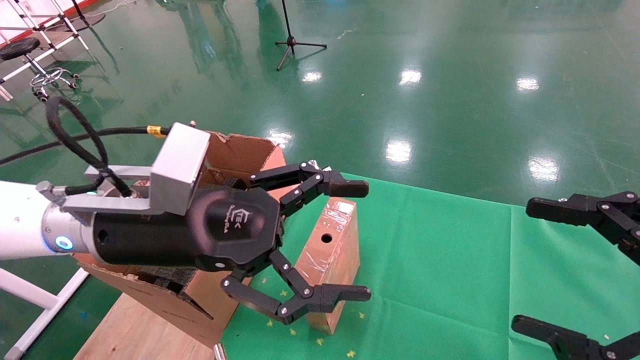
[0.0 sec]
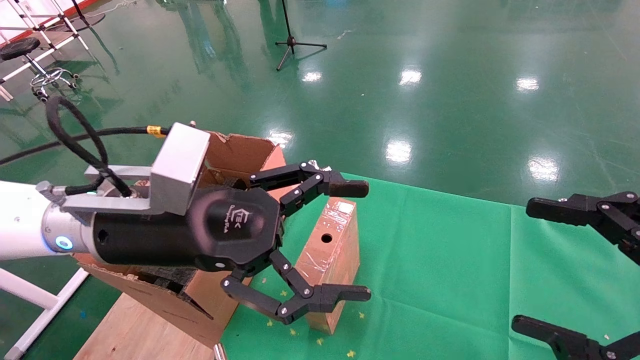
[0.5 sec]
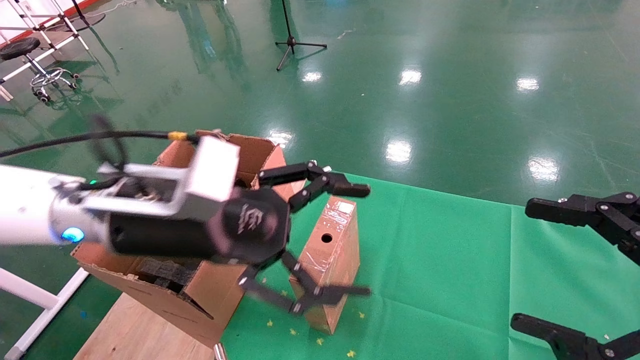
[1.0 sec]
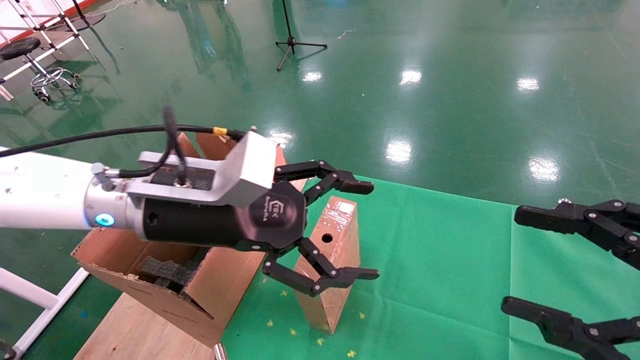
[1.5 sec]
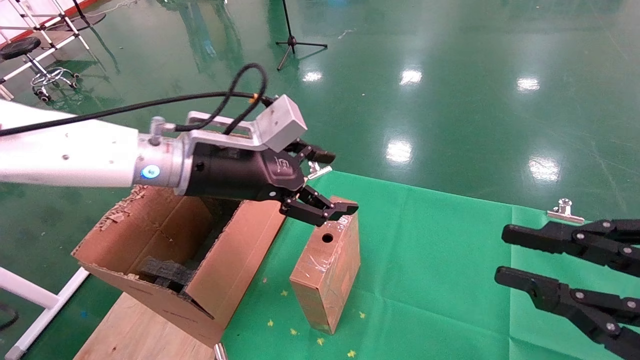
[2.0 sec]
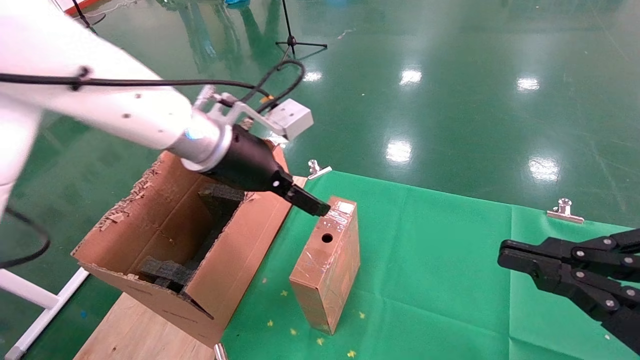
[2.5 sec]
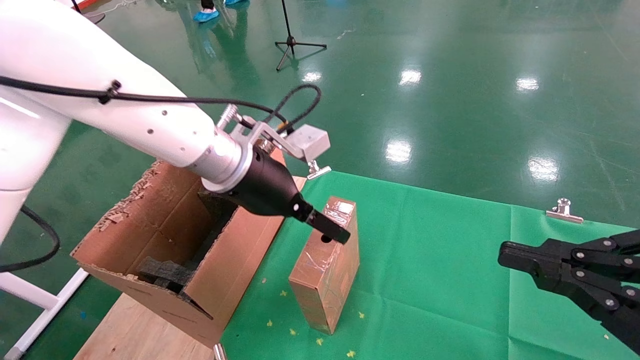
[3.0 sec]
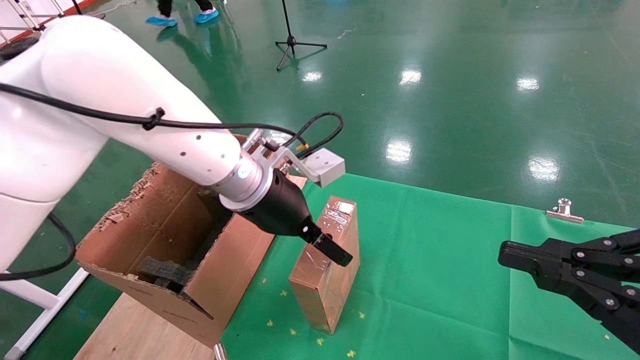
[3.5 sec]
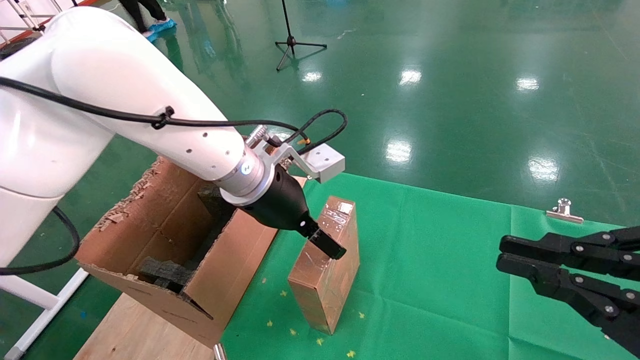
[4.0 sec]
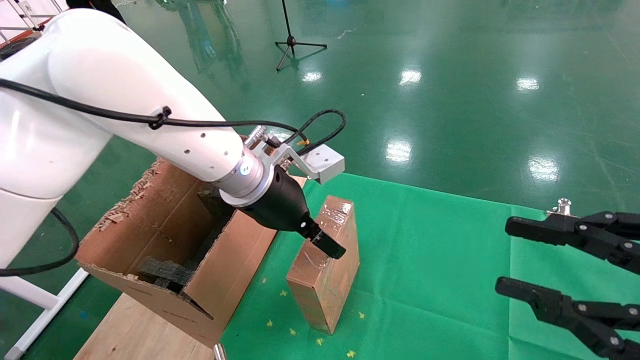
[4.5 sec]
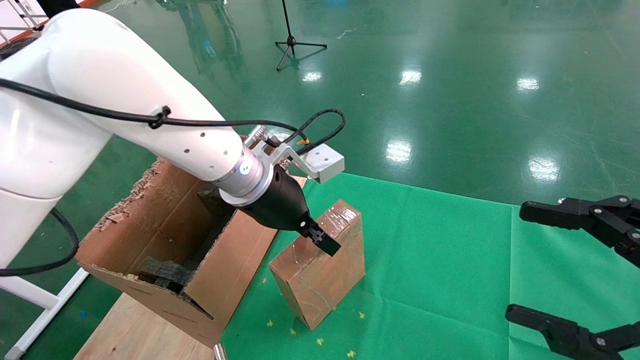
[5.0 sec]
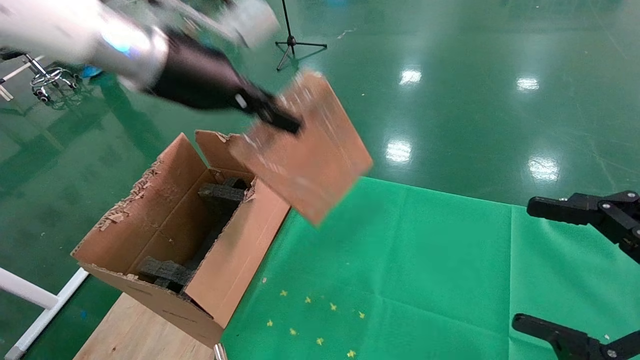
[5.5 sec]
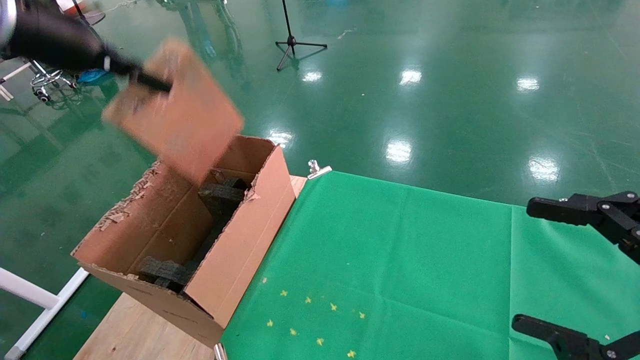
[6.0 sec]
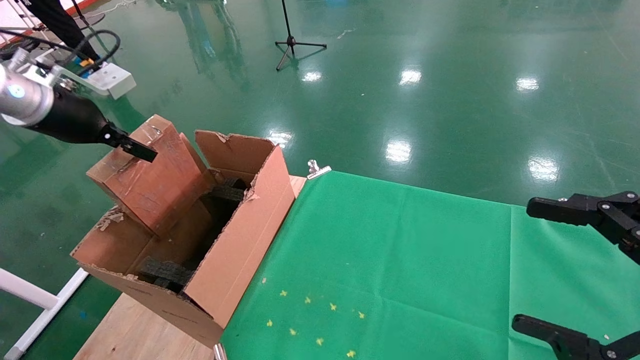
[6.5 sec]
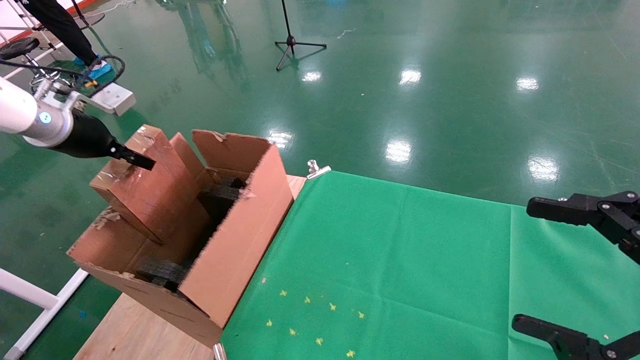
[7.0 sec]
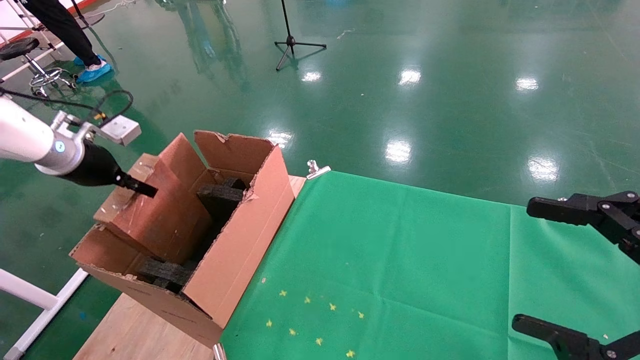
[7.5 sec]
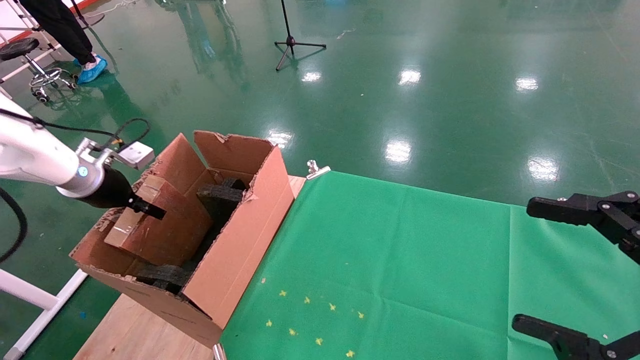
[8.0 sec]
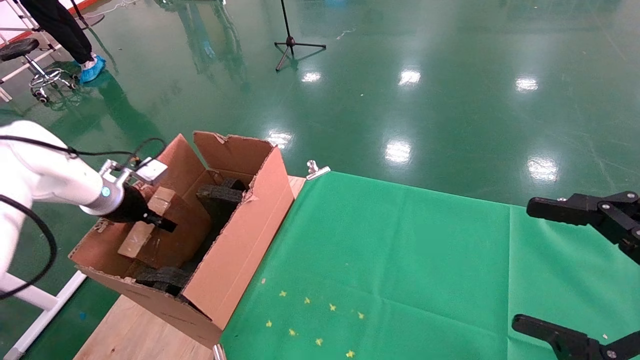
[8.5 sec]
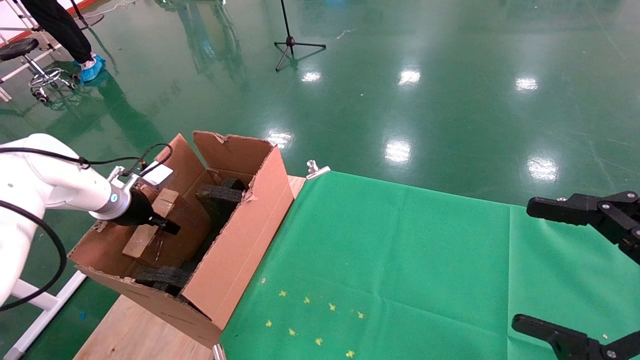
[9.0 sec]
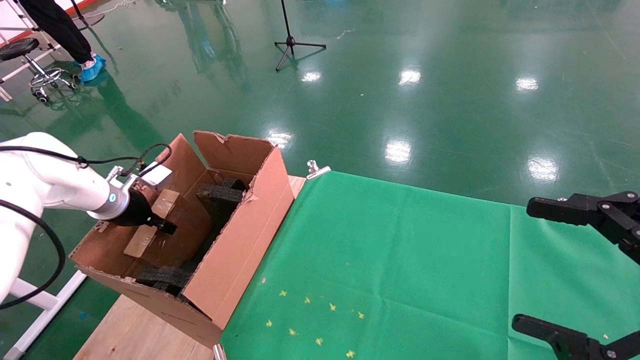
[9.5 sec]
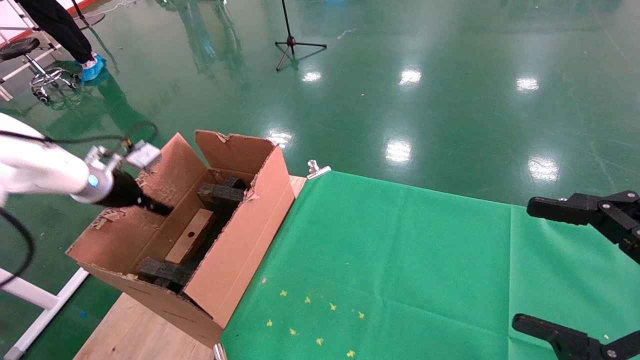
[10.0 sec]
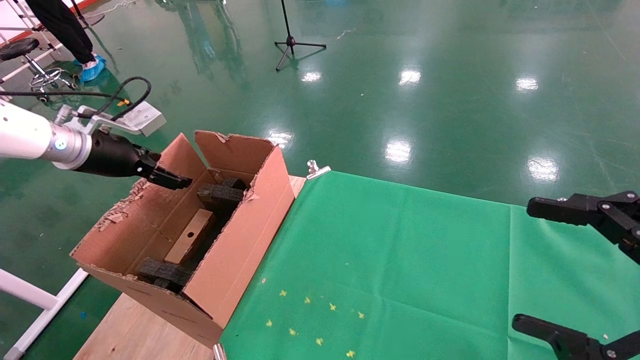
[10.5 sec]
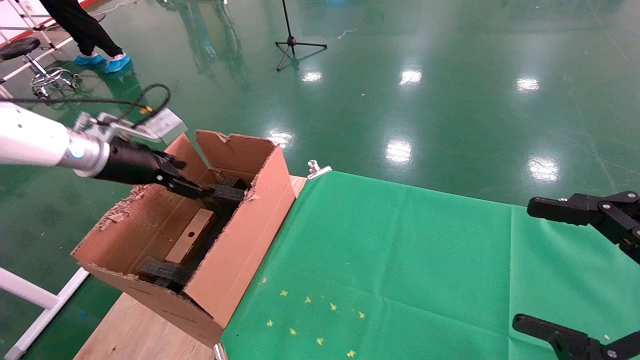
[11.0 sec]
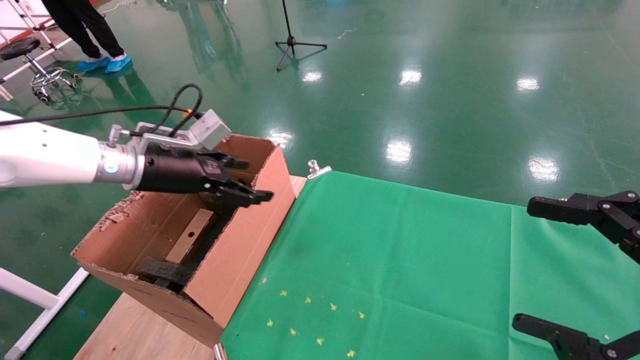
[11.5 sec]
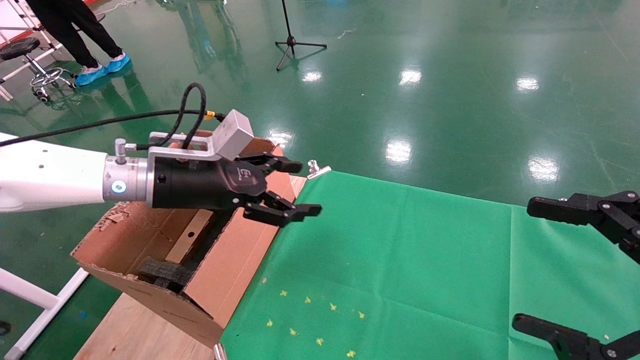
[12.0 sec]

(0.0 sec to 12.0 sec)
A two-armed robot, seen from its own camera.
Task of the whole recording: using a robotic arm to pick up a cardboard box and palace it the carton.
Step, 1.5 sec - 5.0 sec: Pick up the mouse and the power cord paper box.
Step, 5.5 sec - 10.0 sec: Place the mouse and the power cord paper box into the container.
0.0 sec - 2.0 sec: The left gripper shifts about 10 cm forward. The right gripper closes its fingers.
2.0 sec - 4.0 sec: The left gripper is displaced to the right by roughly 5 cm.
4.0 sec - 6.0 sec: The right gripper opens its fingers; the left gripper is displaced to the left and upward by roughly 30 cm, and closes up.
6.0 sec - 8.0 sec: The left gripper shifts roughly 25 cm downward and to the left.
8.0 sec - 10.0 sec: The left gripper opens up.
10.0 sec - 12.0 sec: The left gripper heads to the right, covering some 20 cm, and opens up.

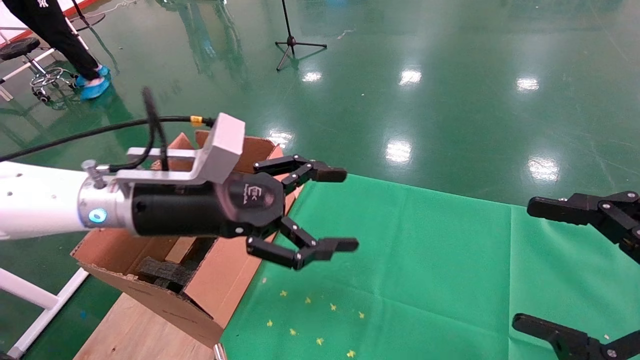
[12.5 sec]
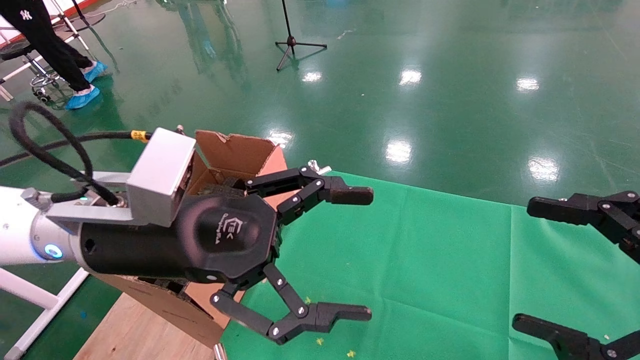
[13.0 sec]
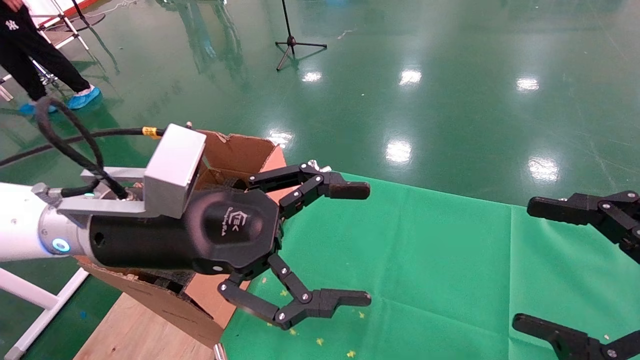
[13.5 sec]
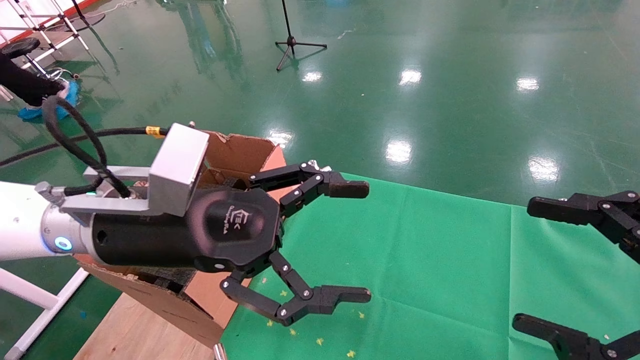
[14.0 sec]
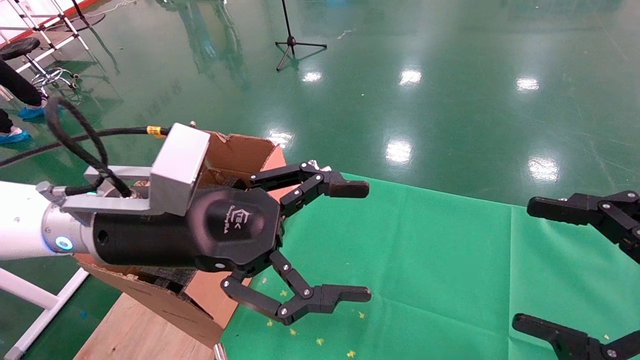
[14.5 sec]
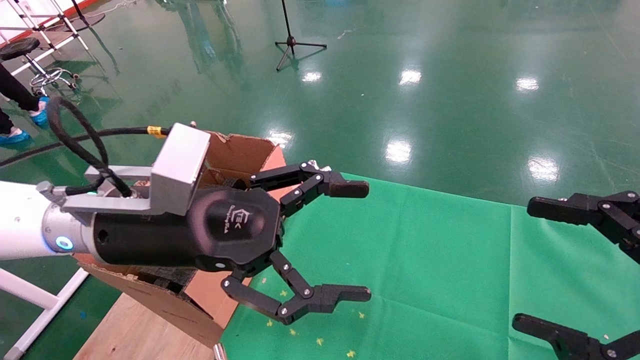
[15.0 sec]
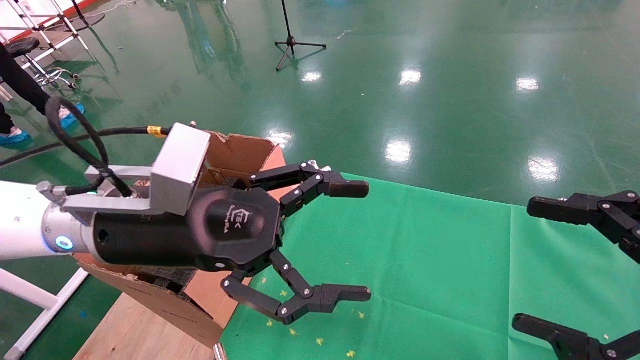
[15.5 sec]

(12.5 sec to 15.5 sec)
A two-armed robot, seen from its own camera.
Task of the whole recording: using a robotic arm to pick up a cardboard box and palace it the carton.
12.5 sec - 14.0 sec: The left gripper ends up some 5 cm from where it was.
14.0 sec - 15.5 sec: Neither gripper changes place.
